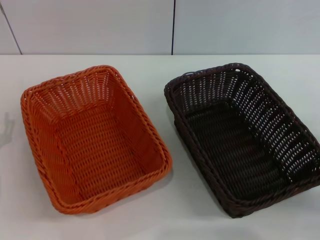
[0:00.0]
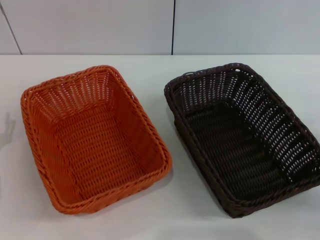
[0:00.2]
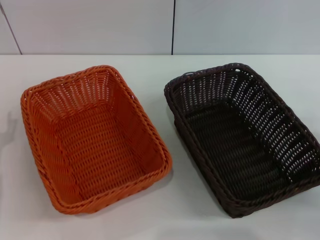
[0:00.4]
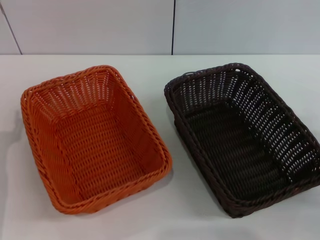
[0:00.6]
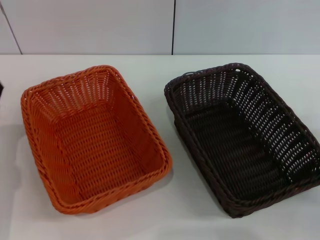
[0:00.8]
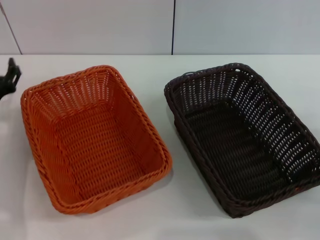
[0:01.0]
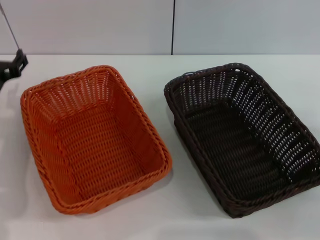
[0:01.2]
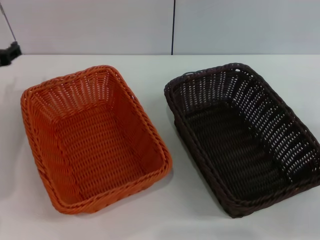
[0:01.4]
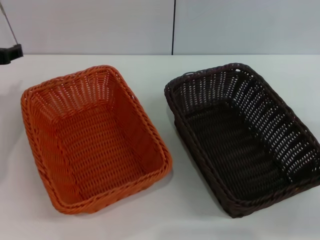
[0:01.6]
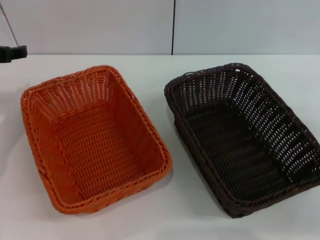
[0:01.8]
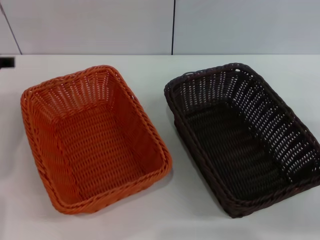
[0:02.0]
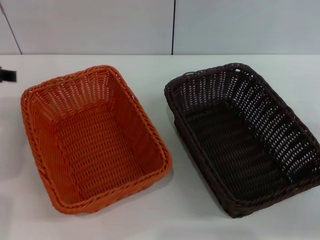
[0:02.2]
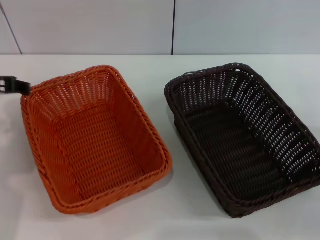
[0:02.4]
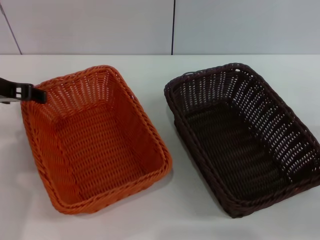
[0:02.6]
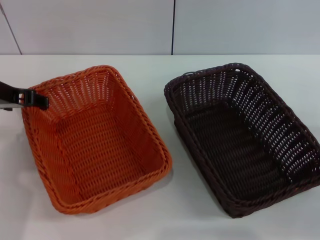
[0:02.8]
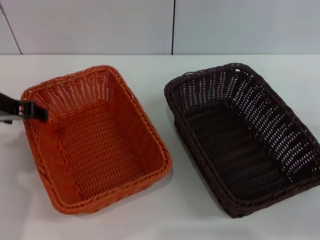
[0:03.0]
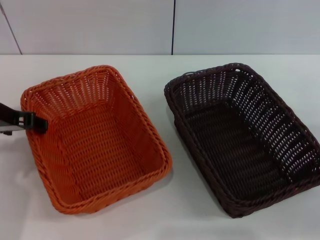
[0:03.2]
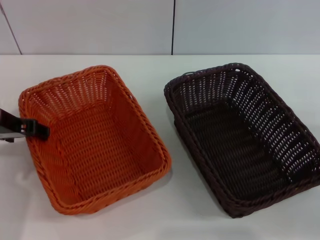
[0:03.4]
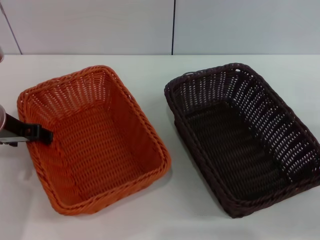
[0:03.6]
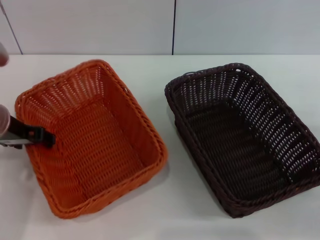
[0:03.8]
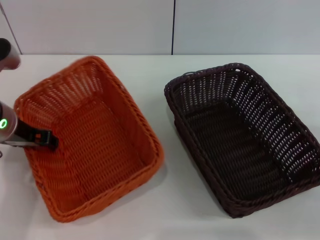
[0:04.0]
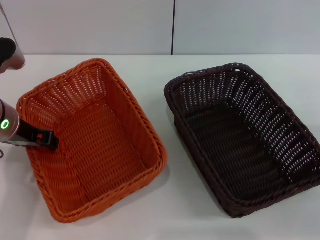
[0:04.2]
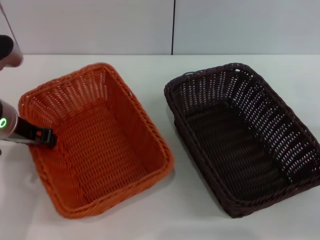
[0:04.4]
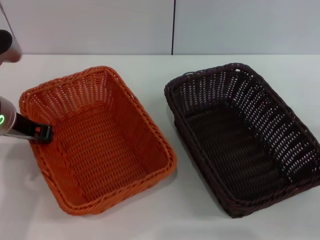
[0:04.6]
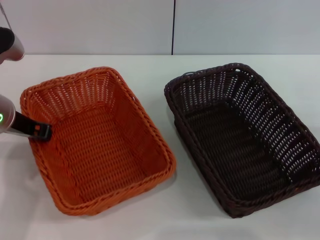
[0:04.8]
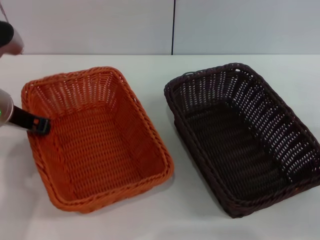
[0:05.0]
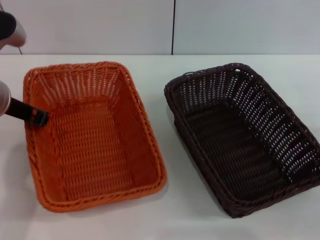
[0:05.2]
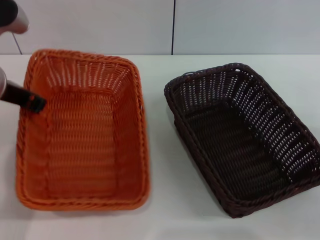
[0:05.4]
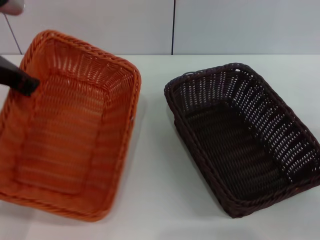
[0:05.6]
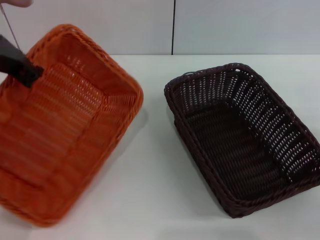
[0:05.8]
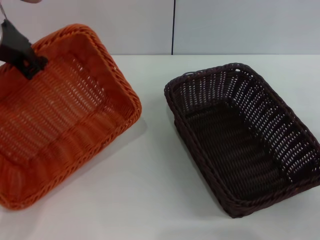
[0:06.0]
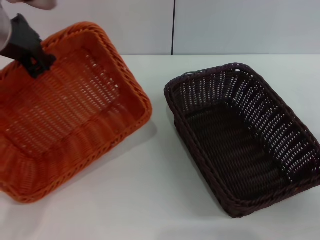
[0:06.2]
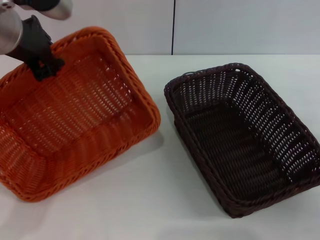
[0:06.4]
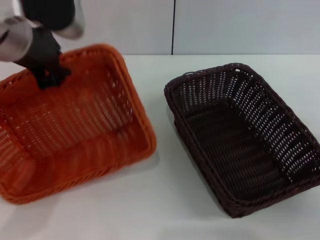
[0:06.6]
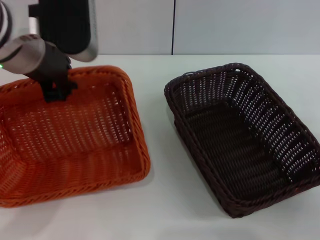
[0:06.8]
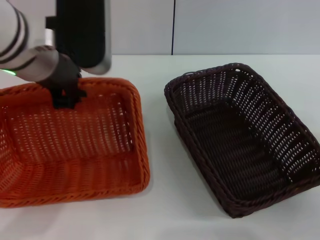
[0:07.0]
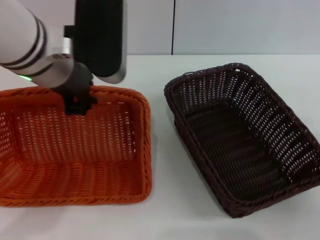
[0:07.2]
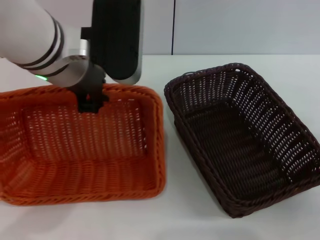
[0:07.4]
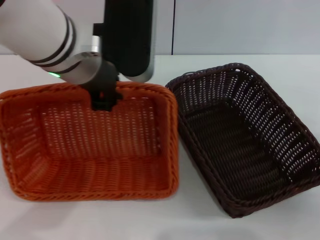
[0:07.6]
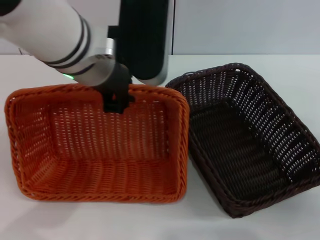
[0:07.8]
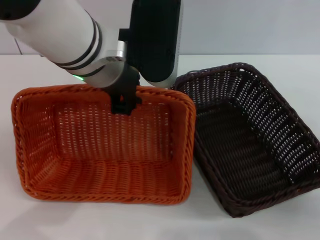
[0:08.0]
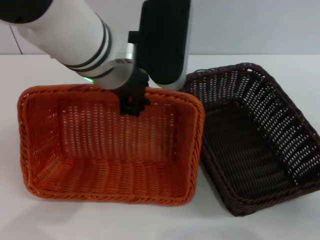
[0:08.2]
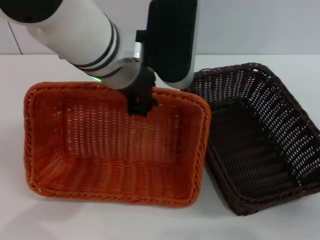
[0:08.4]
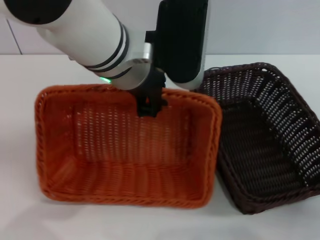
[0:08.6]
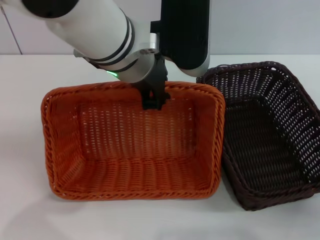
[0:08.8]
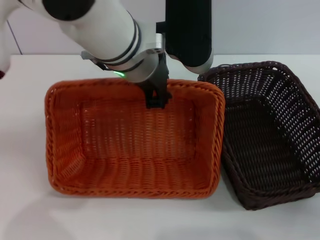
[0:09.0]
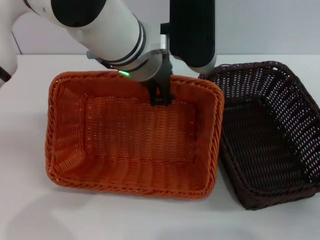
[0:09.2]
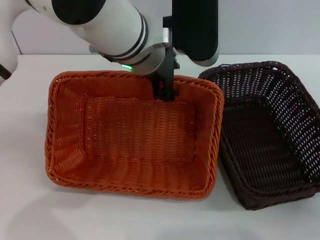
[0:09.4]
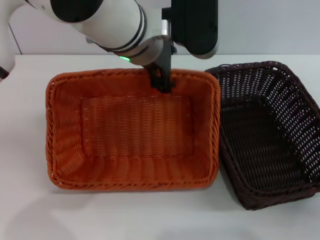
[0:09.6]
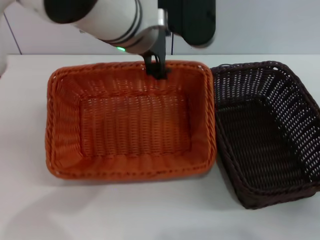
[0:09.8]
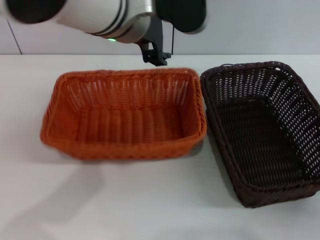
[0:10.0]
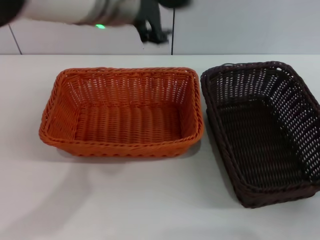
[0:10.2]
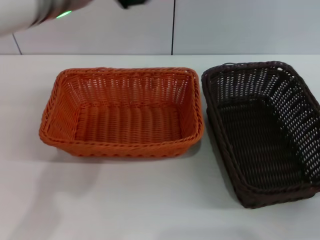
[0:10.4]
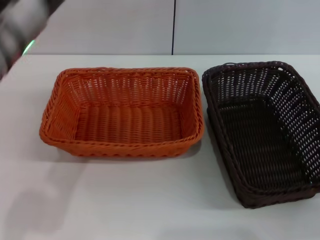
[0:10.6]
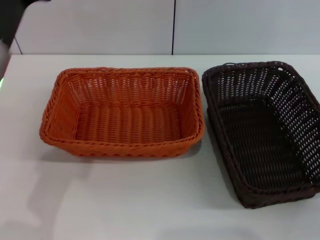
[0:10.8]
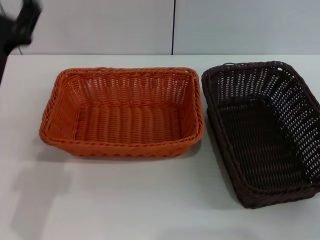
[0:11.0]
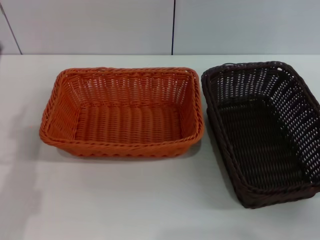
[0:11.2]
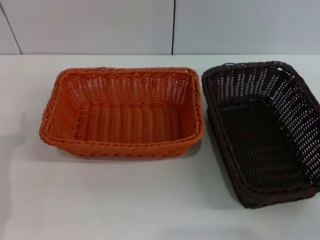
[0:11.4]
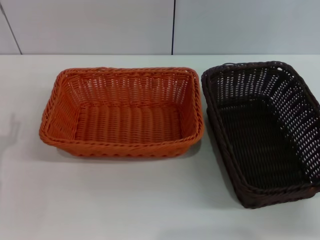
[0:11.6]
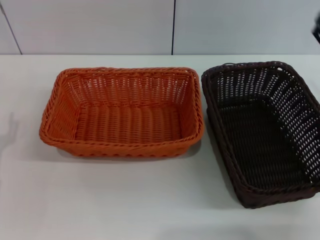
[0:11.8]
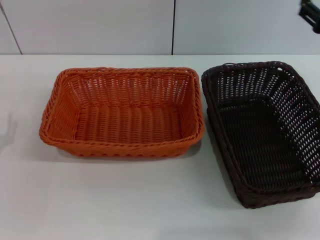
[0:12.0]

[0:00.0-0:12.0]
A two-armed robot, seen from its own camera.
Step, 0:00.0 to 0:05.8: Pick up the light basket with the left gripper.
Step, 0:06.0 to 0:09.8: Place the light basket in the center of view with the left gripper.
0:01.6 to 0:03.0: The left gripper goes roughly 5 cm to the right.
0:03.0 to 0:04.4: The left gripper closes up.
0:04.4 to 0:06.0: The left gripper travels upward by roughly 10 cm, and closes up.
0:06.0 to 0:07.6: The left gripper moves to the right, some 10 cm.
0:07.6 to 0:09.0: The left gripper moves to the right, roughly 5 cm.
0:09.0 to 0:10.4: The left gripper shifts some 10 cm to the left and upward, and opens.
0:10.4 to 0:12.0: The left gripper heads downward and to the left, covering roughly 30 cm, while the right gripper goes about 15 cm upward, forward and to the left.

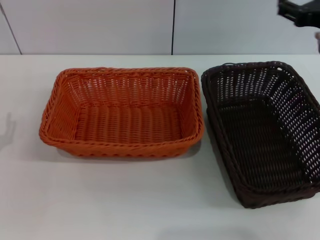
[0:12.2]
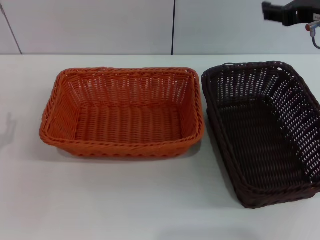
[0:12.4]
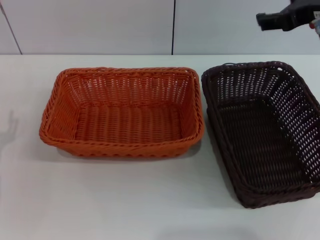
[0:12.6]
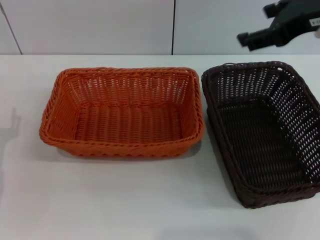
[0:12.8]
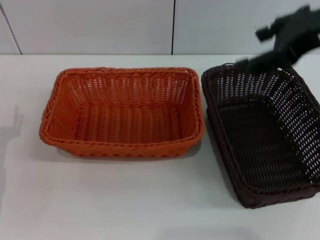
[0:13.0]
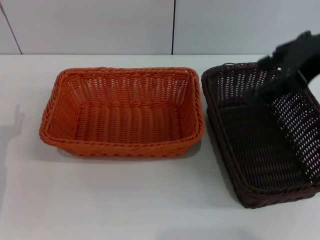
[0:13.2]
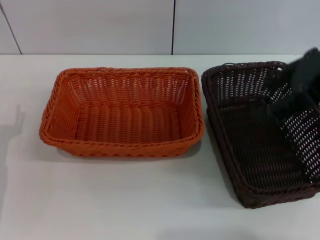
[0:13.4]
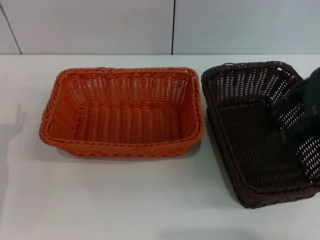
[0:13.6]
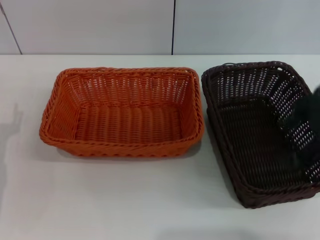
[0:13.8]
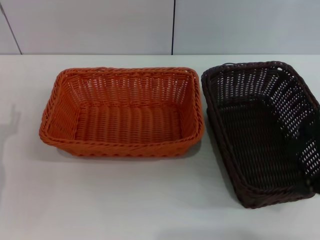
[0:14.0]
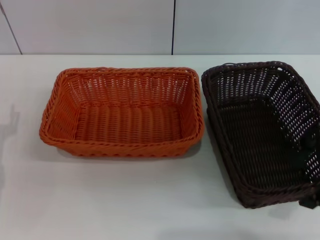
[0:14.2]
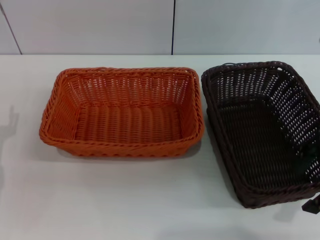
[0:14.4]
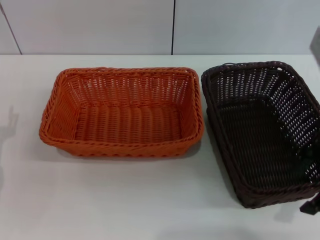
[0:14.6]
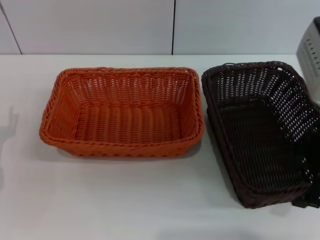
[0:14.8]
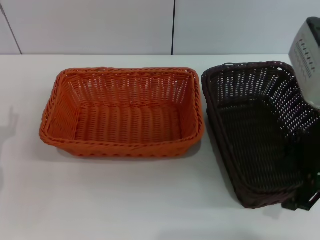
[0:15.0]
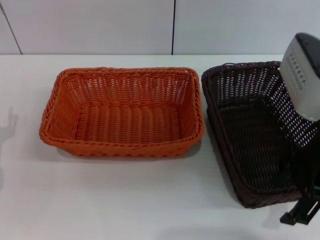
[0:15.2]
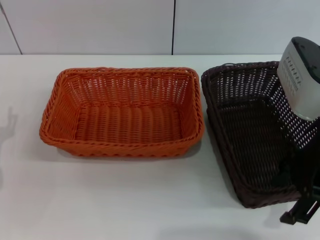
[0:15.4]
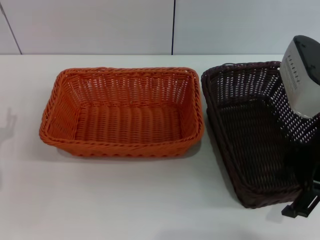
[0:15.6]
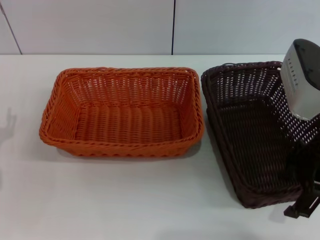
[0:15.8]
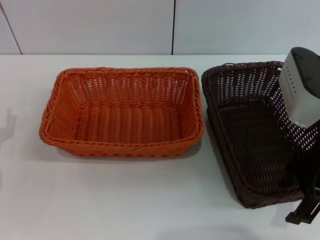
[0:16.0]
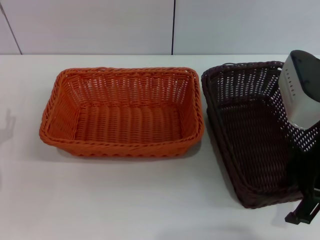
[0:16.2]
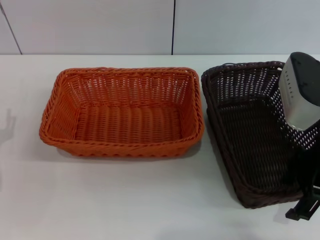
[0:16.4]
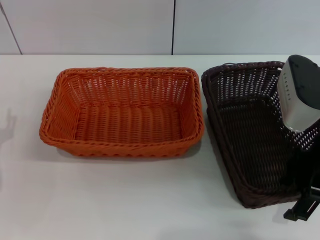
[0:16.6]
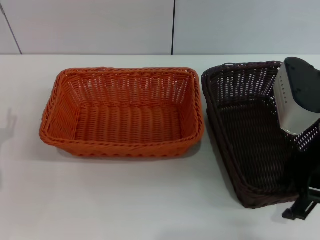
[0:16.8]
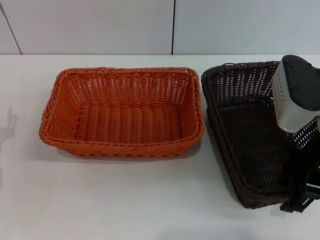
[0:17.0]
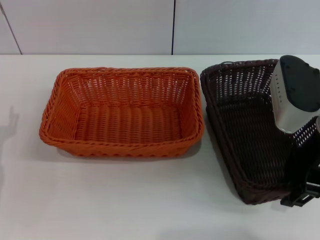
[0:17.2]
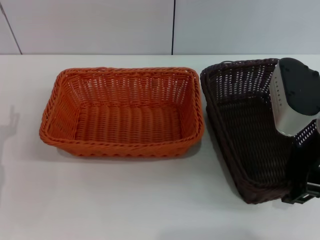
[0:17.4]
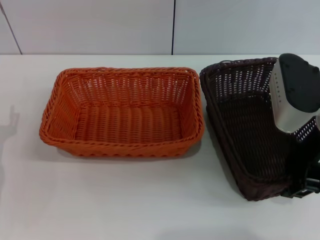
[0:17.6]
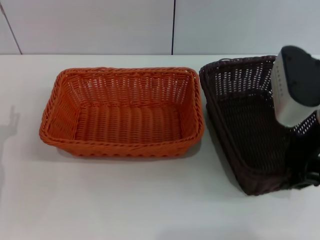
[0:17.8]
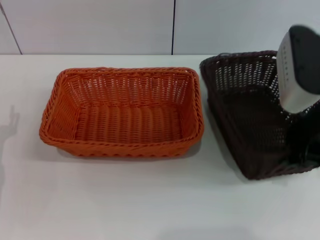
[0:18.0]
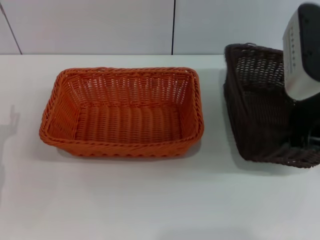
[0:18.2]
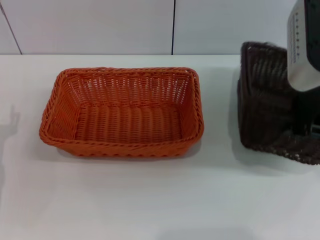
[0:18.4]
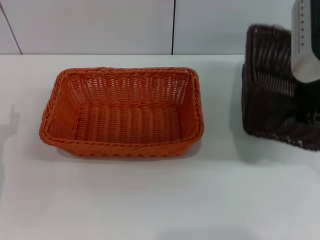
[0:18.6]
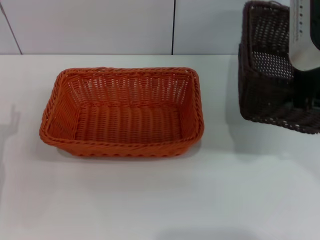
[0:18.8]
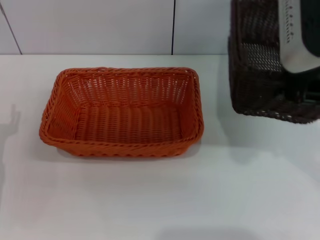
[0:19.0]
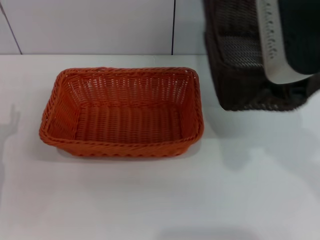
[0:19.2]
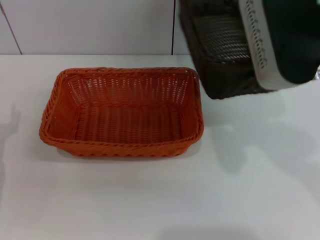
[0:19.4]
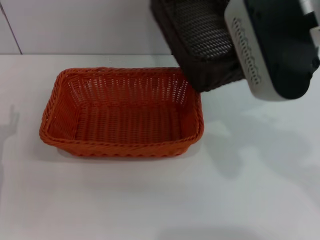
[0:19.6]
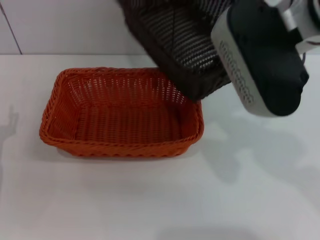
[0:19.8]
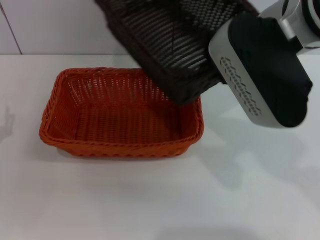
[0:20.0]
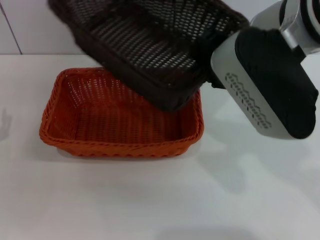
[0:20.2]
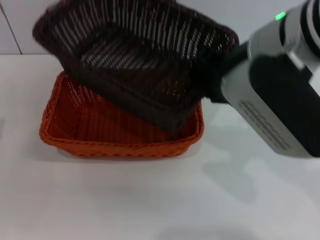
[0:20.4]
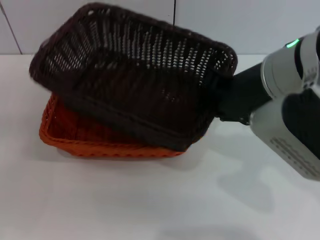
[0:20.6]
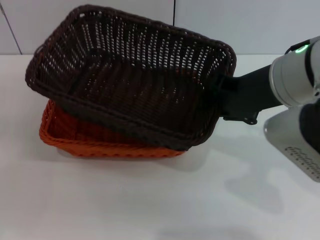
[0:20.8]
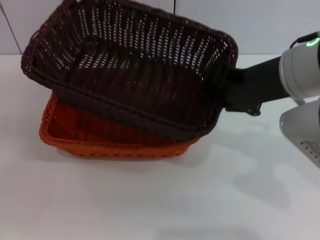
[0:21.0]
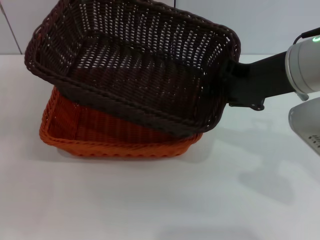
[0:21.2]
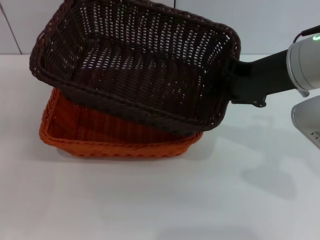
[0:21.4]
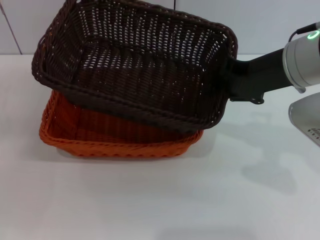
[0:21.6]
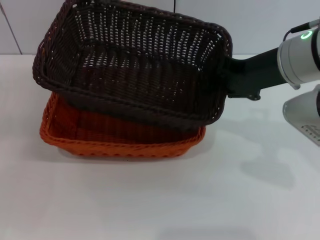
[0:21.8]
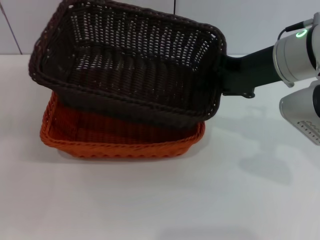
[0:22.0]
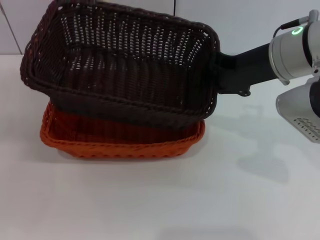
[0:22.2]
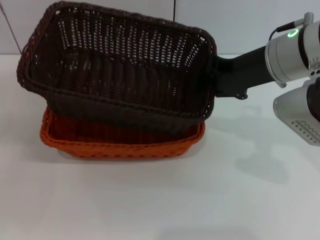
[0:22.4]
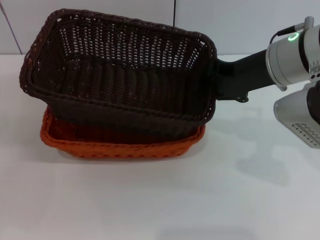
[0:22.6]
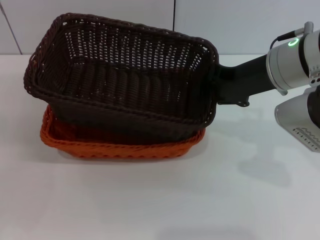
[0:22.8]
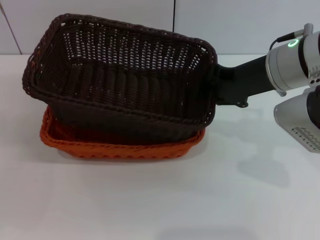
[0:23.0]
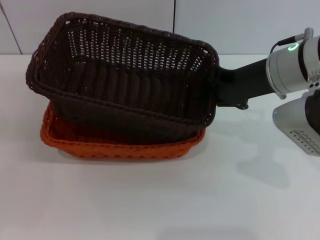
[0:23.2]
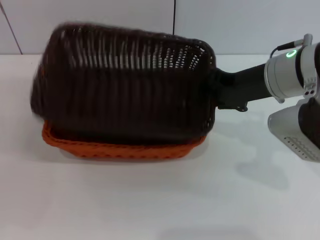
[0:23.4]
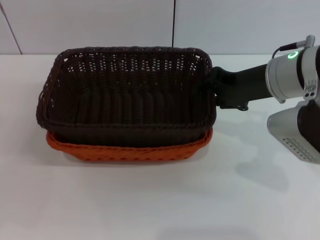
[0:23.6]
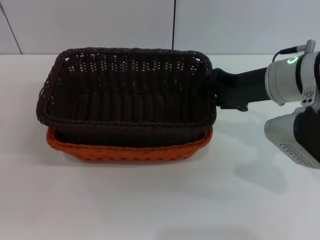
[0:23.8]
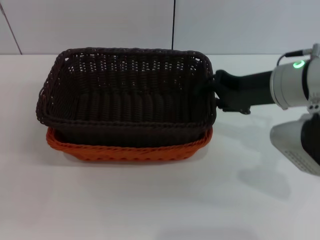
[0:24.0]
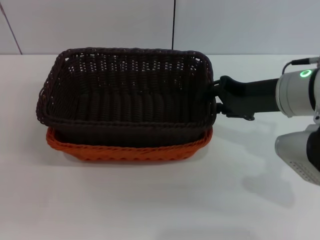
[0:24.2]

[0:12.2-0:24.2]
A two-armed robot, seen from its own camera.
Step, 0:12.2 to 0:18.6: Pick up the dark basket with the right gripper.
0:12.2 to 0:13.8: The right gripper is displaced upward and backward by approximately 10 cm.
0:13.8 to 0:15.2: The right gripper moves downward, about 5 cm.
0:15.2 to 0:16.6: The grippers make only small movements.
0:16.6 to 0:18.2: The right gripper is displaced upward by roughly 5 cm, and closes its fingers.
0:18.2 to 0:19.8: The right gripper heads to the left, covering about 10 cm.
0:19.8 to 0:21.2: The right gripper shifts by about 5 cm.
0:21.2 to 0:22.6: The right gripper moves some 5 cm.
0:22.6 to 0:24.2: The right gripper changes place by roughly 5 cm, and opens its fingers.
